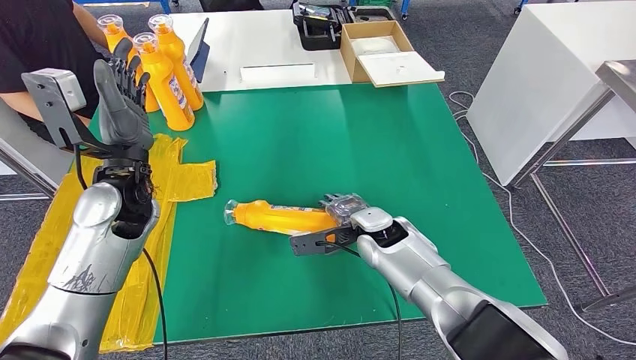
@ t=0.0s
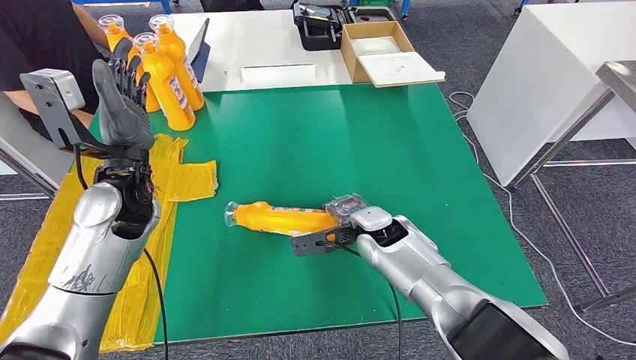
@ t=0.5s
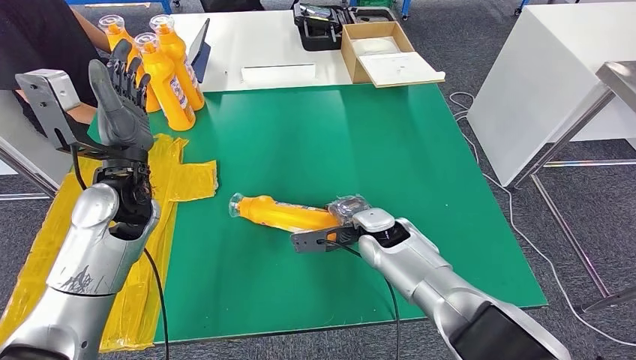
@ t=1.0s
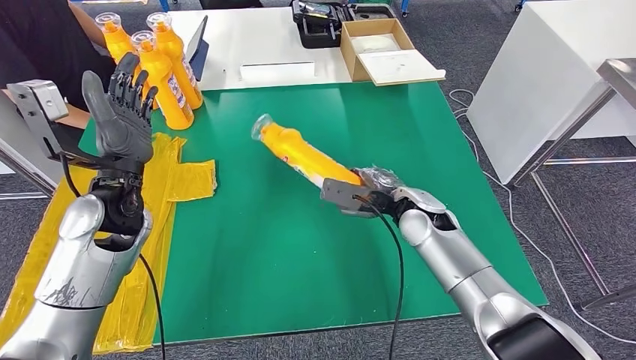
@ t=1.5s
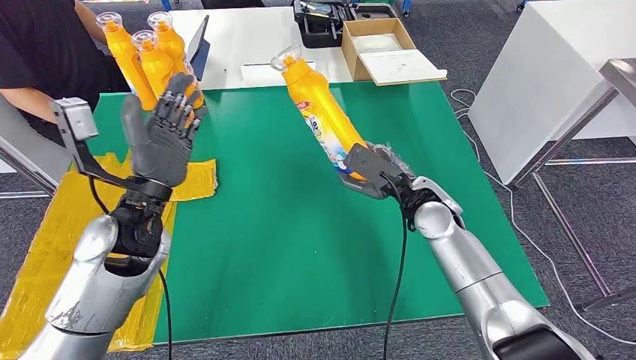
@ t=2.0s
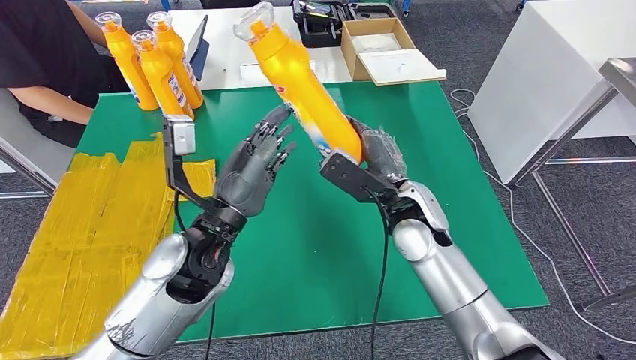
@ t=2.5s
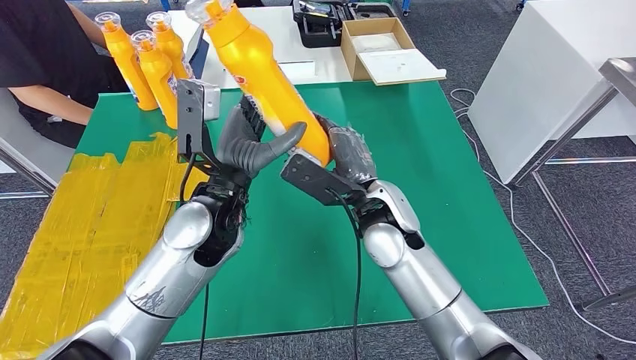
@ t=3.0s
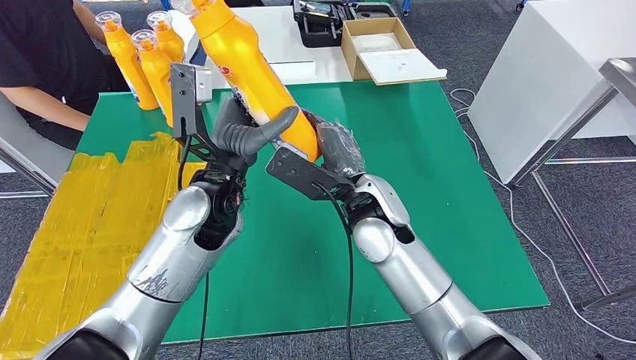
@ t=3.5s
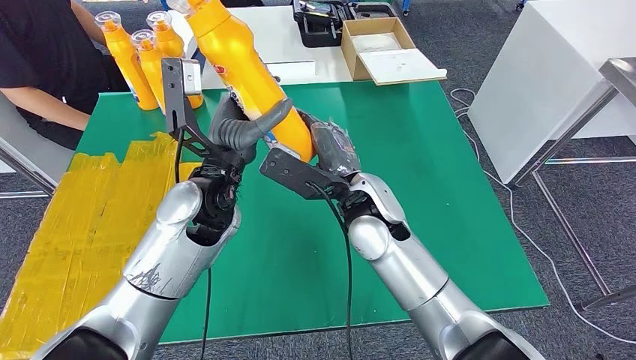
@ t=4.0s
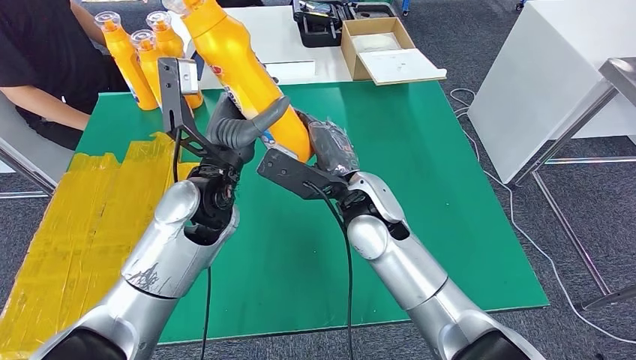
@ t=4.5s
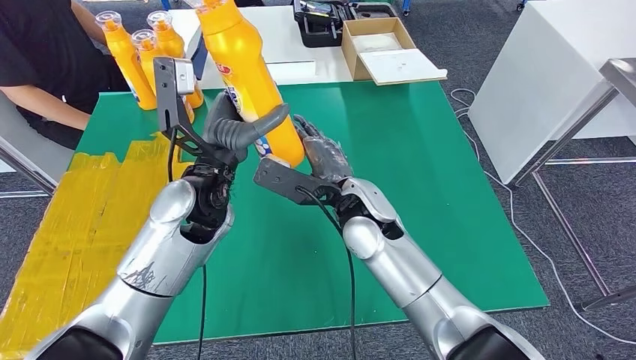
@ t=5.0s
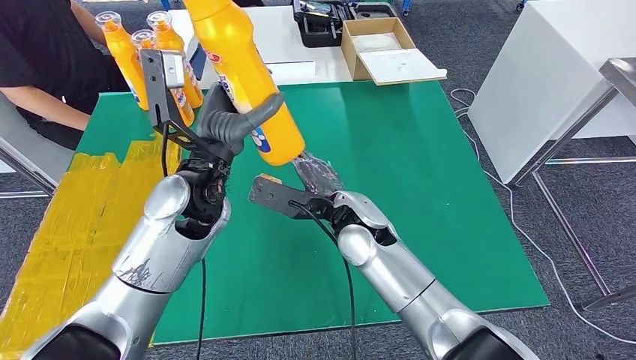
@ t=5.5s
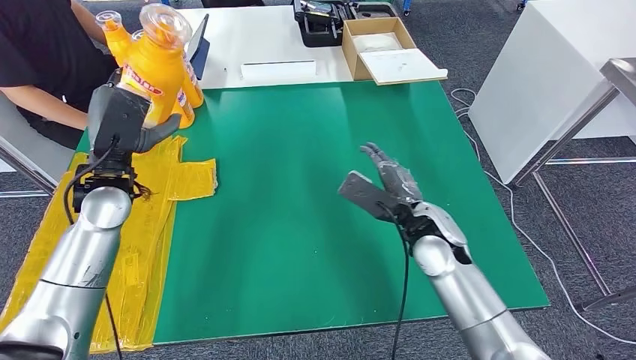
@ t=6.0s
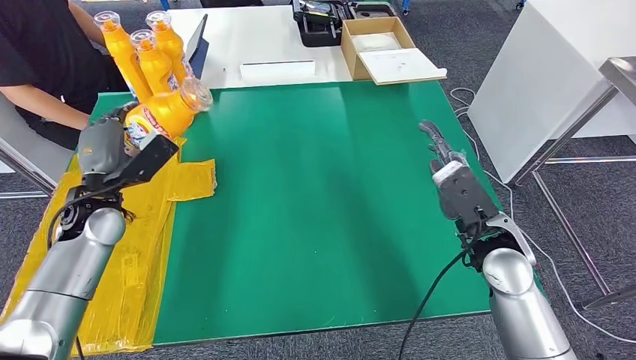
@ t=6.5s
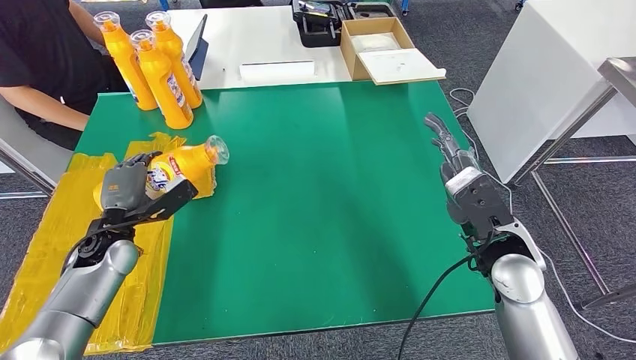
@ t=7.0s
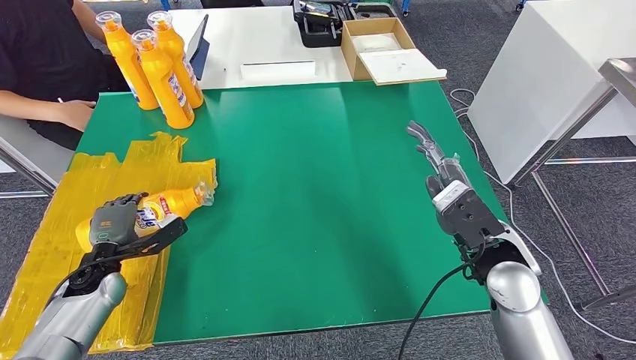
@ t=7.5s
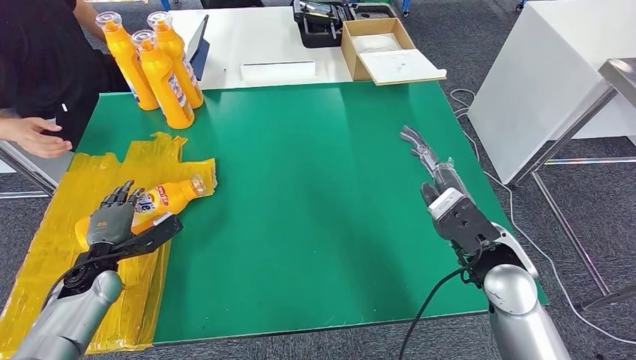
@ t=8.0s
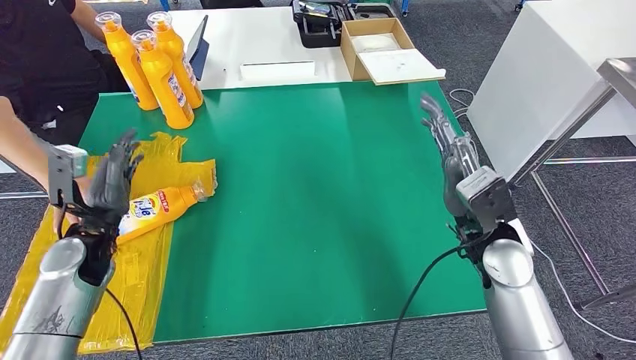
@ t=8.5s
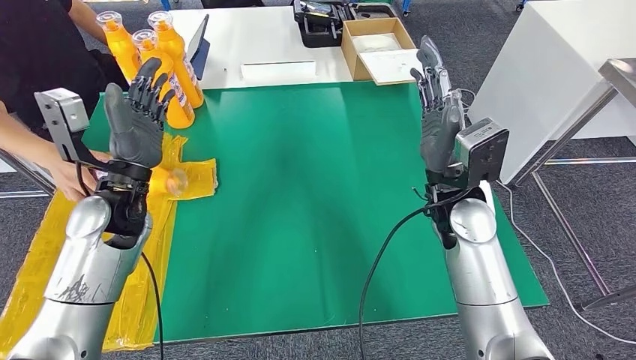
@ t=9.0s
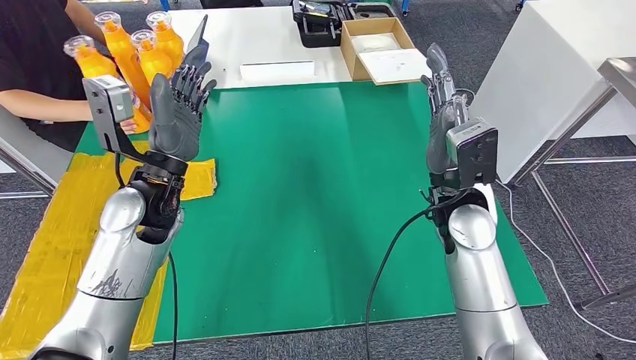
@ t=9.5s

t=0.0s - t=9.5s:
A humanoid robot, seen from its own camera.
Step, t=0.5s - t=4.5s: Pick up the fast-moving consumer goods bottle from the table.
Step, t=5.0s - t=9.5s: Flip the fast-moving consumer goods bottle to the front side.
t=4.0s - t=5.5s: The hands stay close to where they were, moving slightly.

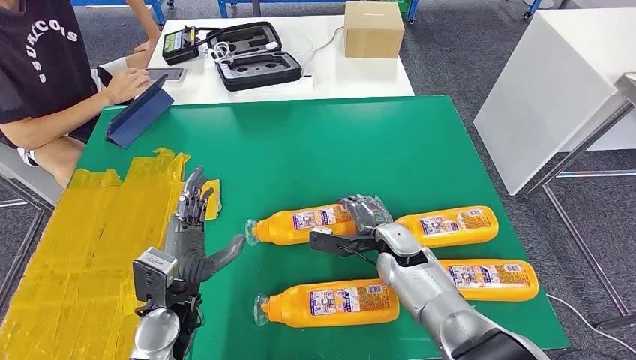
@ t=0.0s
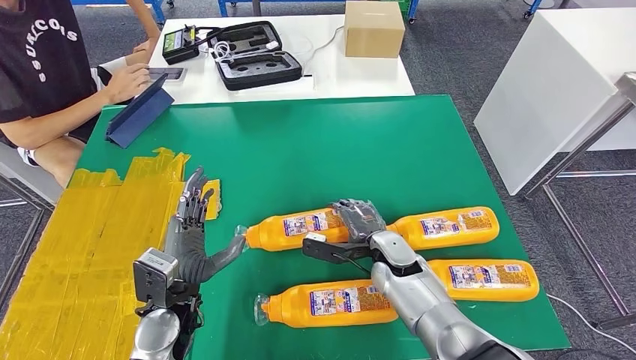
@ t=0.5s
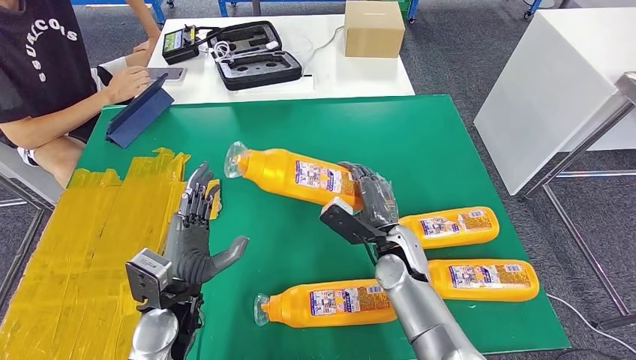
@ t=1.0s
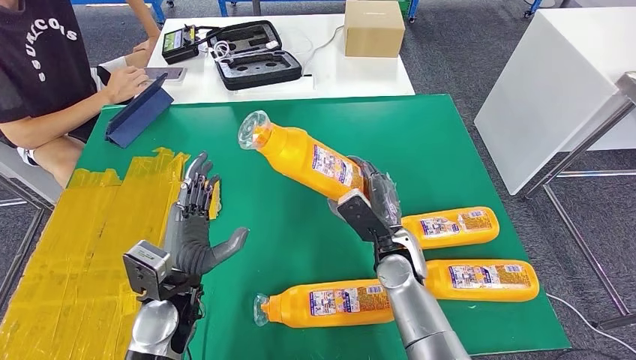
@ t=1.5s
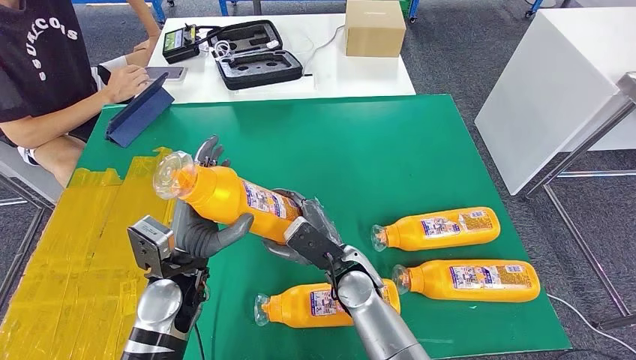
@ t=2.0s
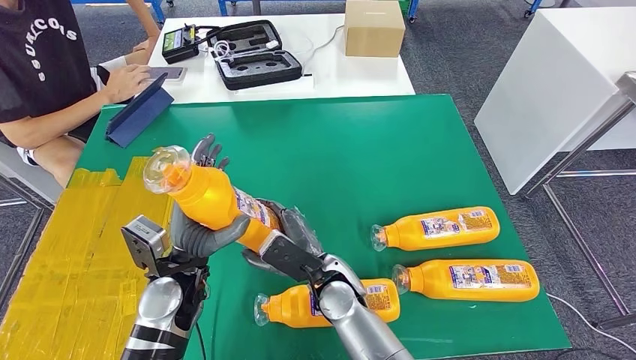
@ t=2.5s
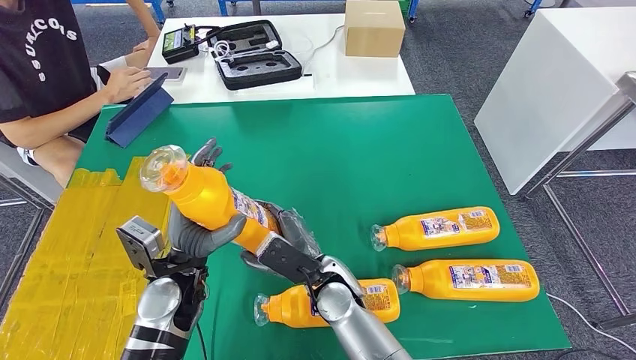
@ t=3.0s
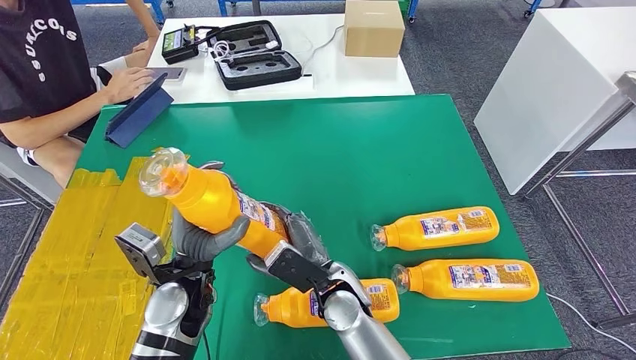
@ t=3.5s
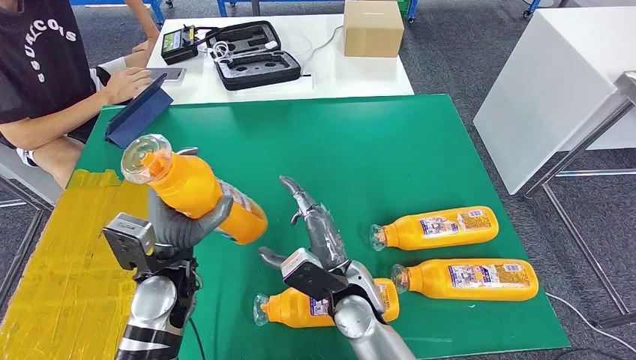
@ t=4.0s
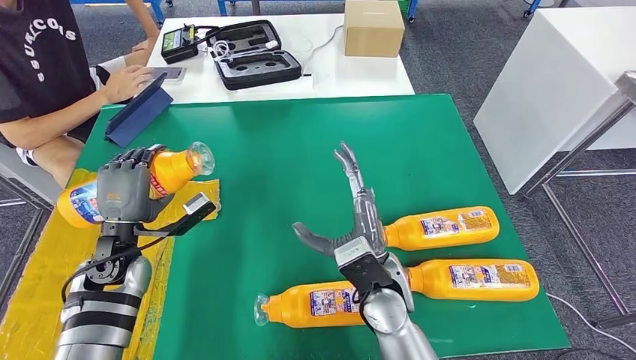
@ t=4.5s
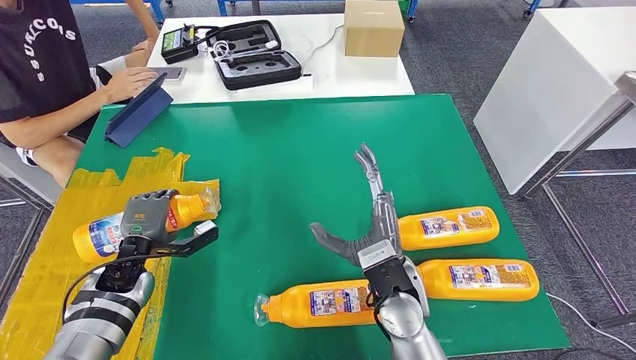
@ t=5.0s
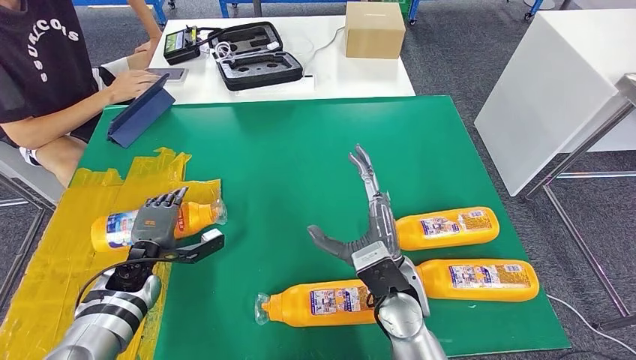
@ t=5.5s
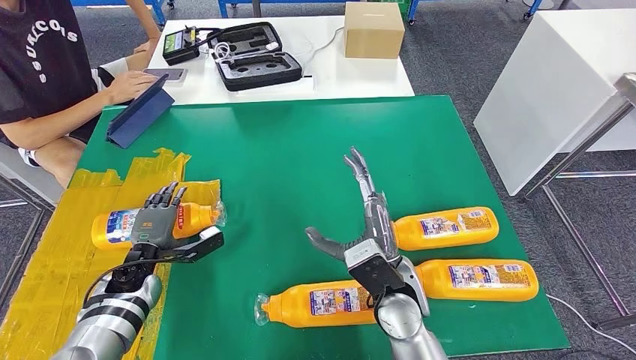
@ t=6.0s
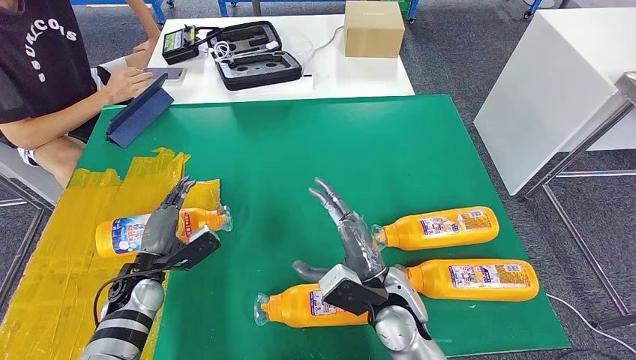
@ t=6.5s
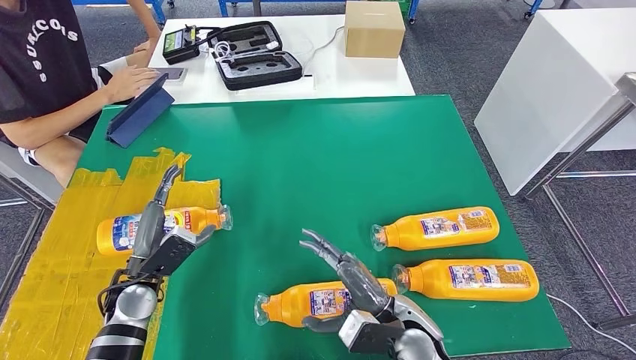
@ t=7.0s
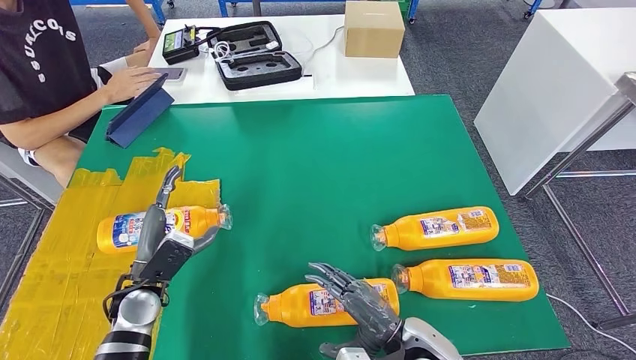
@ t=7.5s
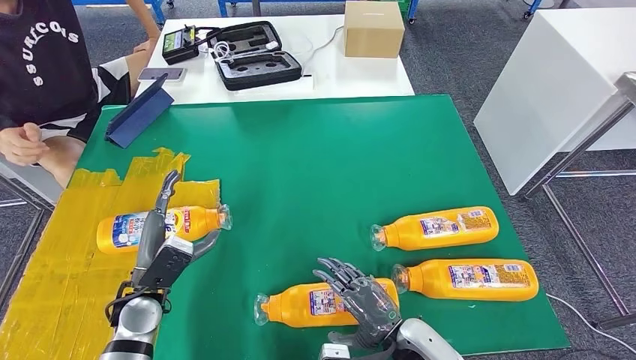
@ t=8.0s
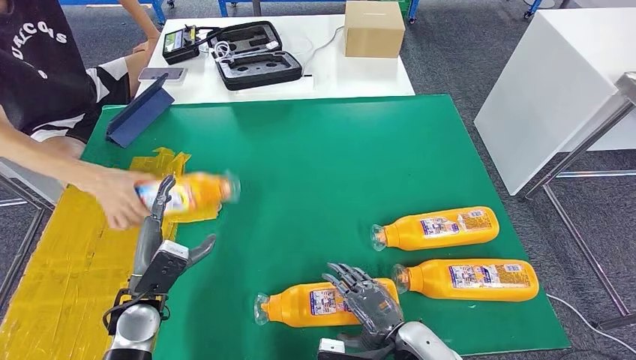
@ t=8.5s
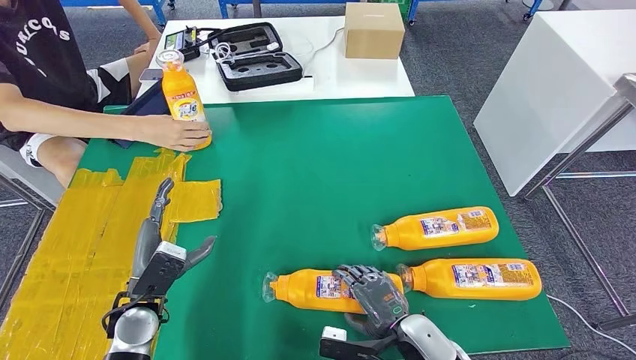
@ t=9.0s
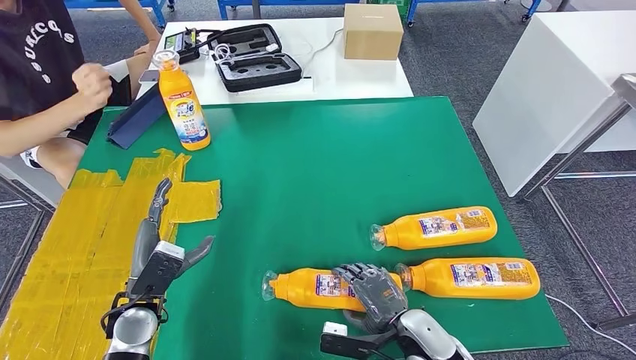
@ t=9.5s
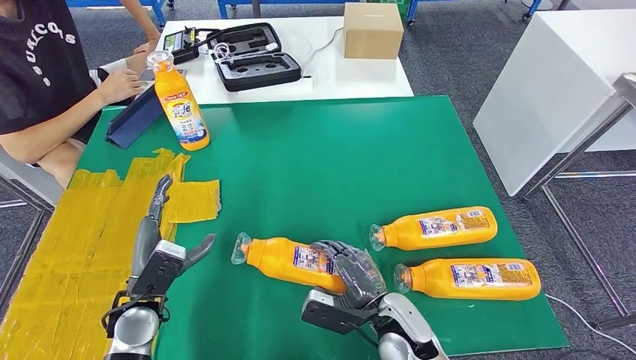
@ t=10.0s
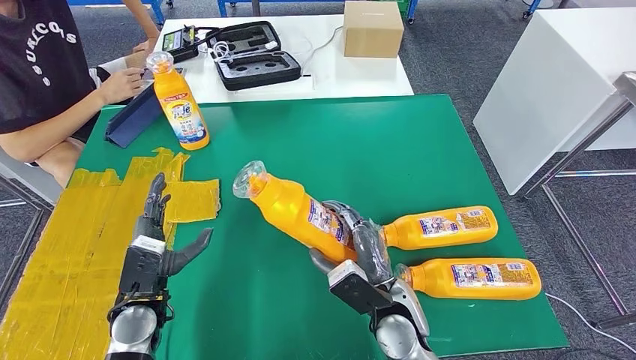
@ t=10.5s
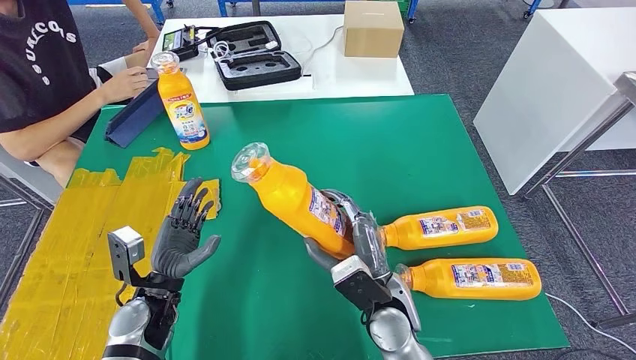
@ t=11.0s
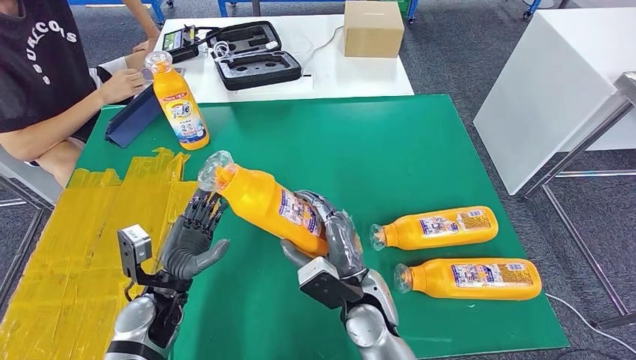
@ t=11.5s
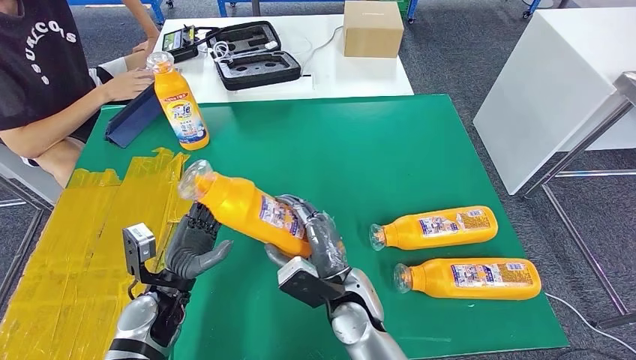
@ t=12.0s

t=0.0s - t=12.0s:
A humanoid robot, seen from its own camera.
Step, t=0.0s - t=3.0s: Take the fast-moving consumer goods bottle from the table.
Step, t=3.5s - t=7.5s: Flip the fast-moving consumer goods bottle to the front side.
t=2.0s - t=4.0s: The hands stay close to where they were, moving slightly.
t=4.0s - t=6.0s: The left hand travels to the left, downward and forward by some 20 cm. The right hand travels to the right by about 5 cm.
t=6.0s - t=8.0s: The left hand heads backward, covering some 5 cm. Meanwhile the right hand heads downward and backward, covering about 10 cm.
t=8.0s - t=10.0s: The right hand ends up approximately 5 cm from where it was.
t=10.0s - t=12.0s: The right hand shifts roughly 10 cm to the left.
